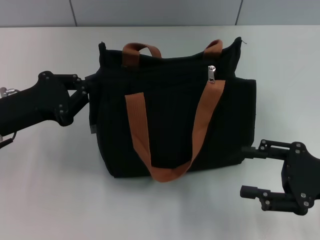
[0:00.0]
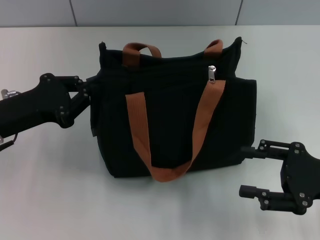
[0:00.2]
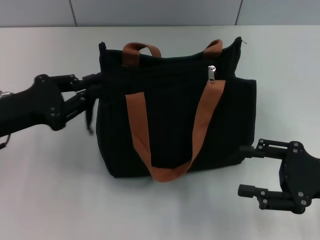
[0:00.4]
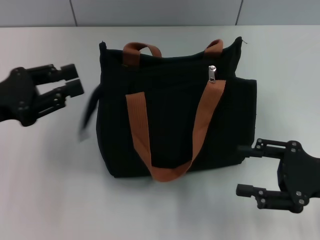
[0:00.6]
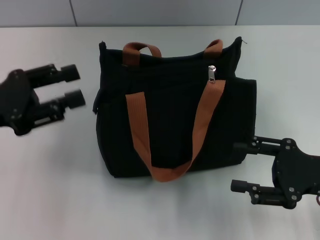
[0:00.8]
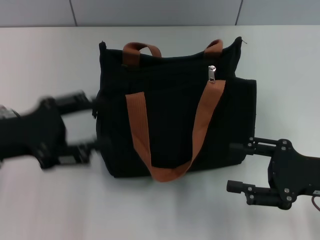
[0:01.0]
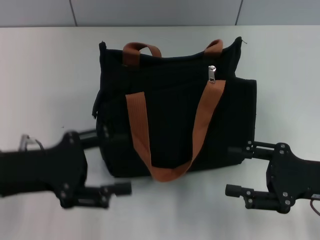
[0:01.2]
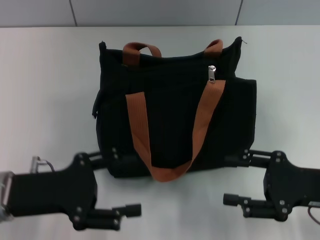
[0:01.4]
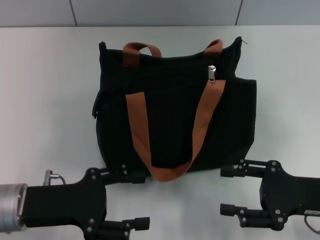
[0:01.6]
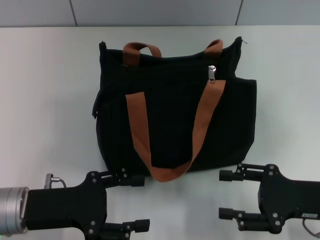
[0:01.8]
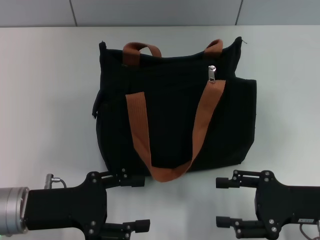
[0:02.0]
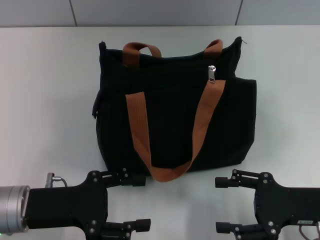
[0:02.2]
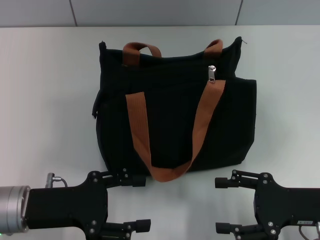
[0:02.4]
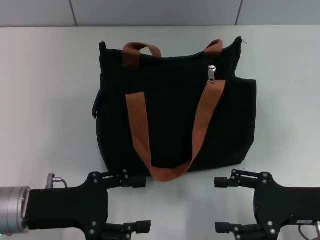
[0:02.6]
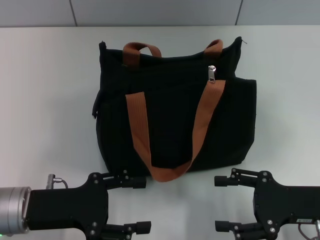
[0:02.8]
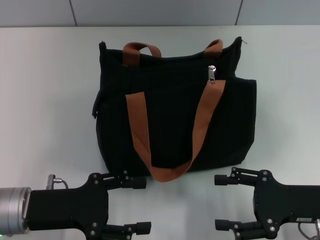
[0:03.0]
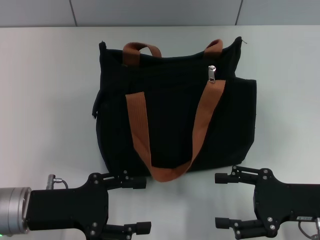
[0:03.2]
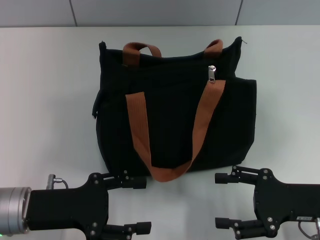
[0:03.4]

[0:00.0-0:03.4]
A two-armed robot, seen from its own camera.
0.0 to 1.6 s: The left gripper heads backward, covering approximately 5 cm, and opens its fingers.
1.6 to 3.4 s: Both grippers stay put.

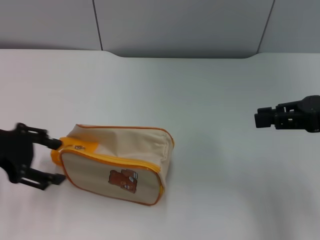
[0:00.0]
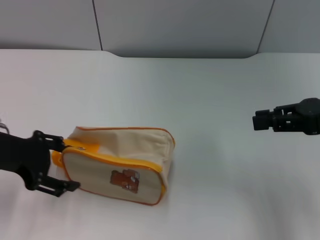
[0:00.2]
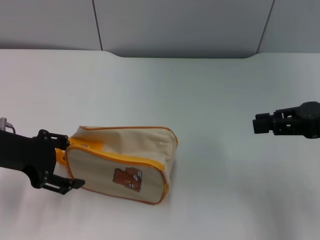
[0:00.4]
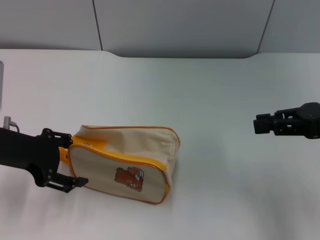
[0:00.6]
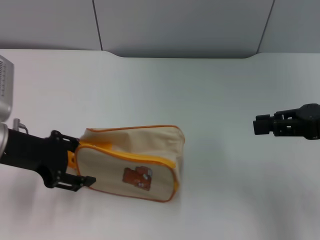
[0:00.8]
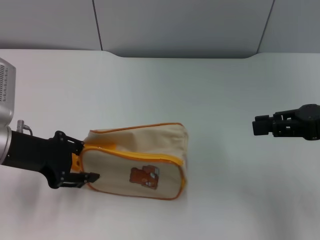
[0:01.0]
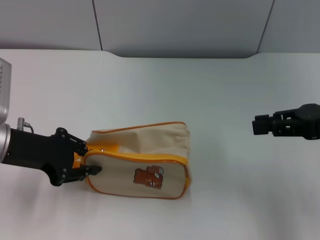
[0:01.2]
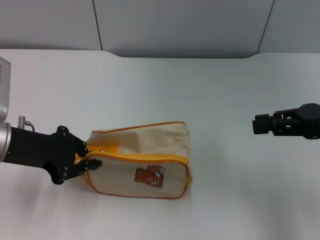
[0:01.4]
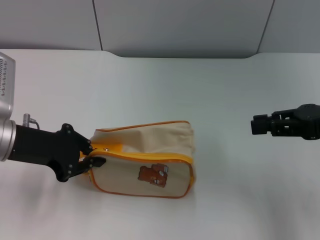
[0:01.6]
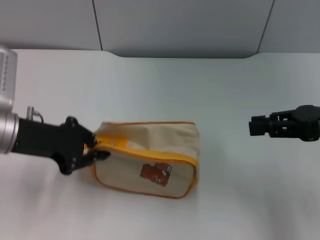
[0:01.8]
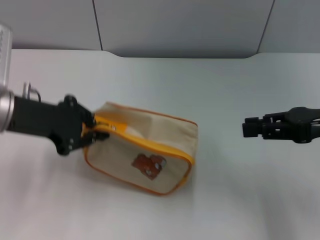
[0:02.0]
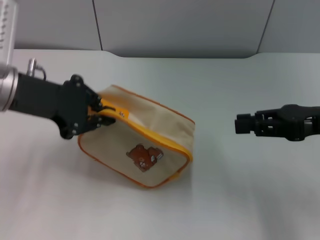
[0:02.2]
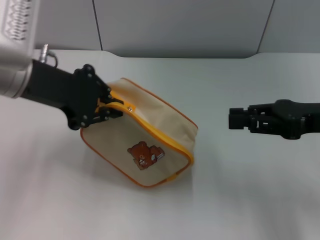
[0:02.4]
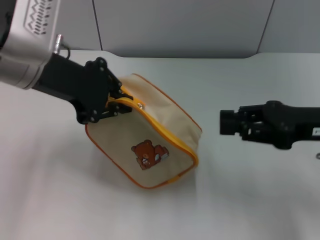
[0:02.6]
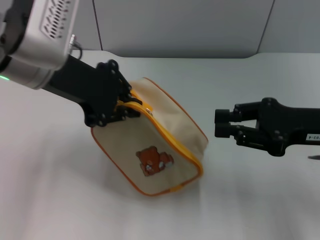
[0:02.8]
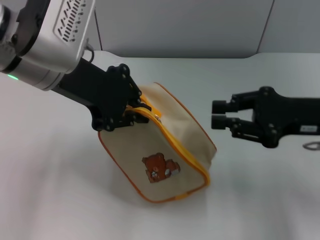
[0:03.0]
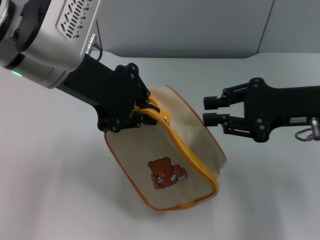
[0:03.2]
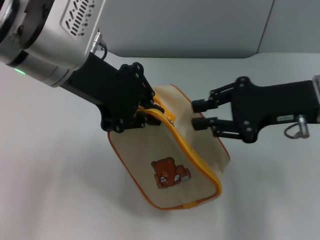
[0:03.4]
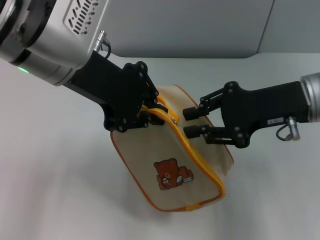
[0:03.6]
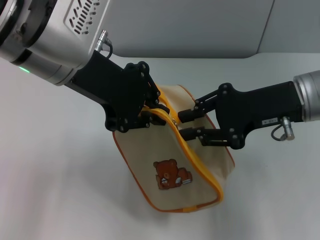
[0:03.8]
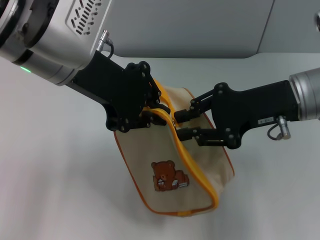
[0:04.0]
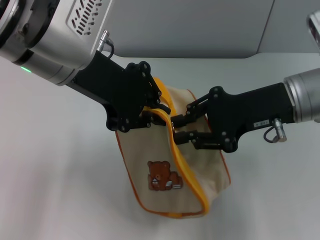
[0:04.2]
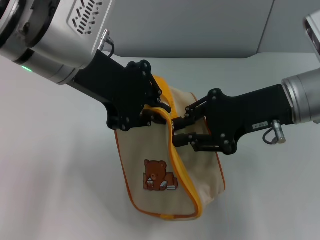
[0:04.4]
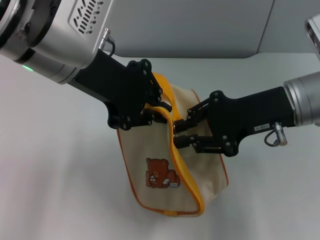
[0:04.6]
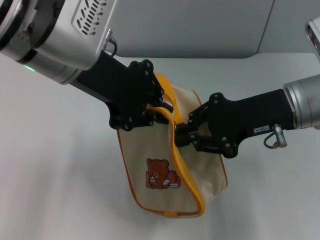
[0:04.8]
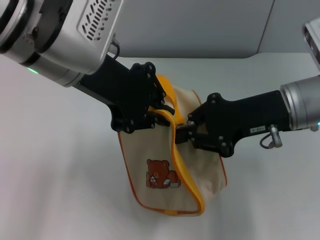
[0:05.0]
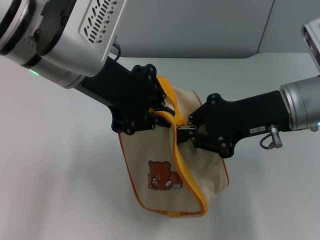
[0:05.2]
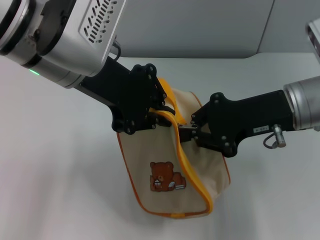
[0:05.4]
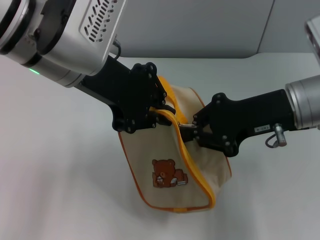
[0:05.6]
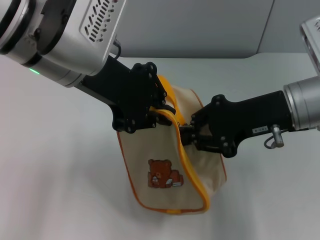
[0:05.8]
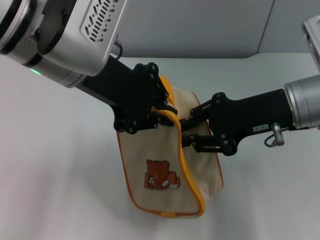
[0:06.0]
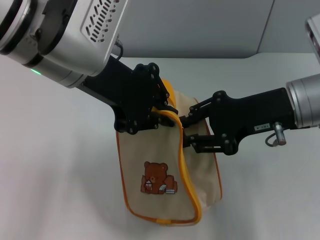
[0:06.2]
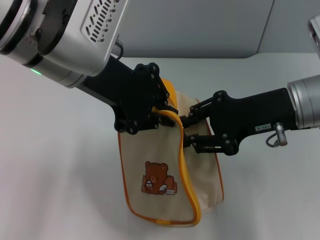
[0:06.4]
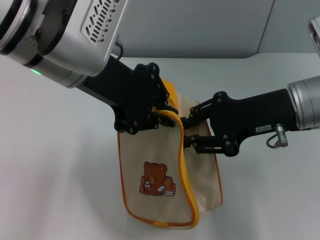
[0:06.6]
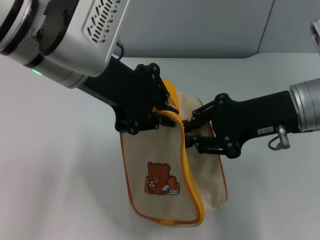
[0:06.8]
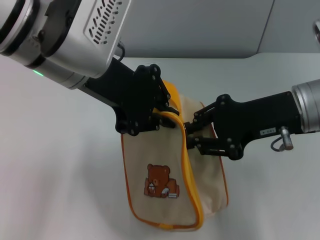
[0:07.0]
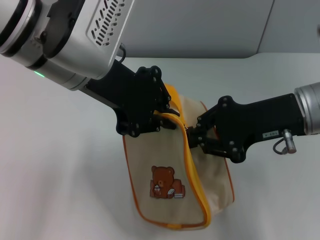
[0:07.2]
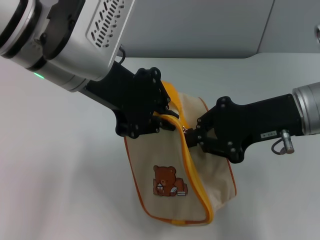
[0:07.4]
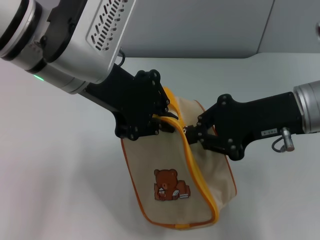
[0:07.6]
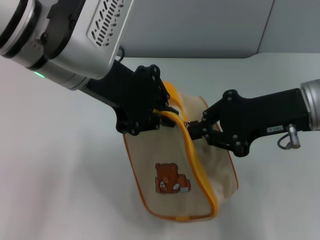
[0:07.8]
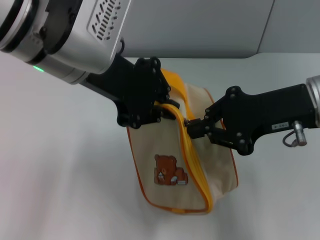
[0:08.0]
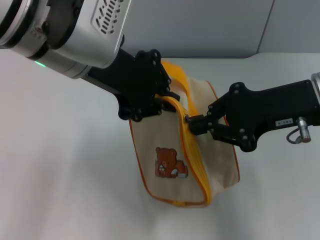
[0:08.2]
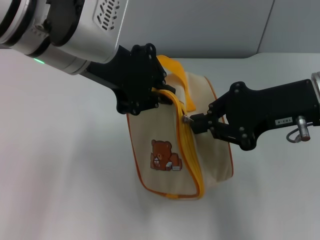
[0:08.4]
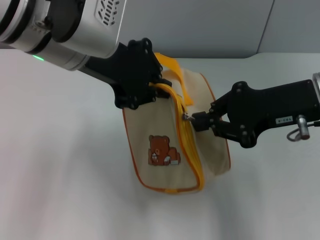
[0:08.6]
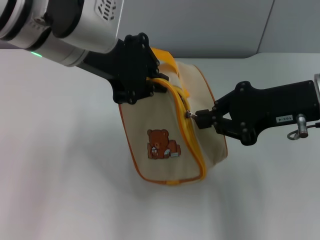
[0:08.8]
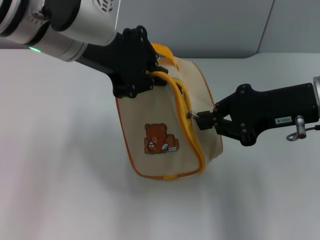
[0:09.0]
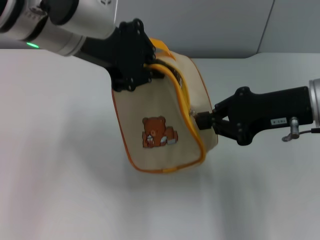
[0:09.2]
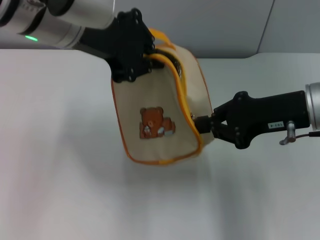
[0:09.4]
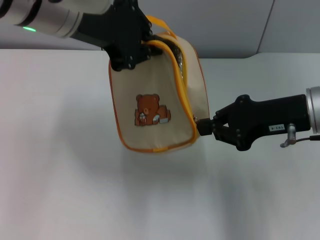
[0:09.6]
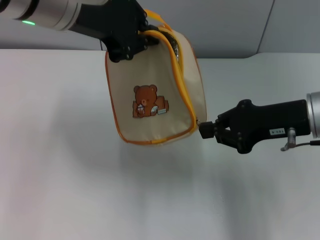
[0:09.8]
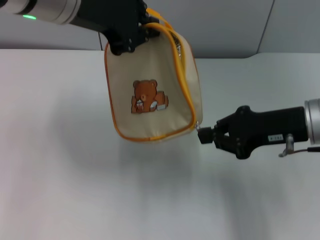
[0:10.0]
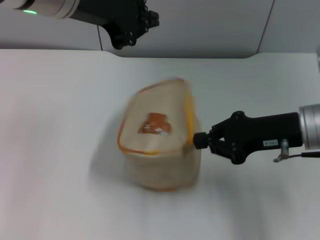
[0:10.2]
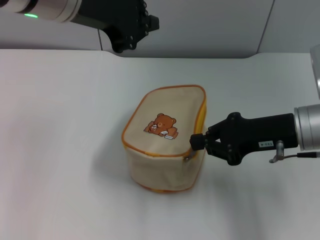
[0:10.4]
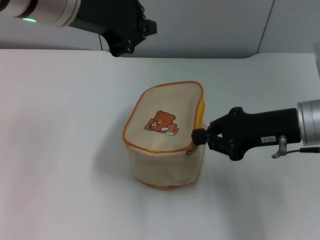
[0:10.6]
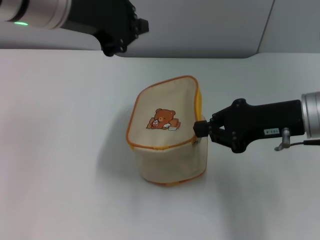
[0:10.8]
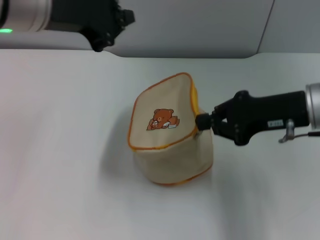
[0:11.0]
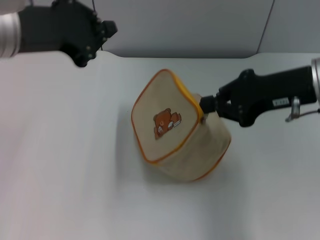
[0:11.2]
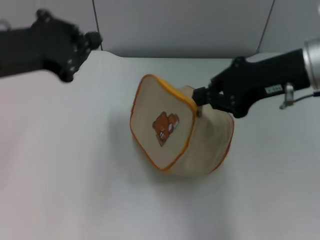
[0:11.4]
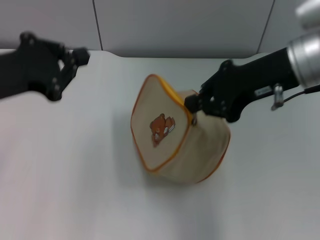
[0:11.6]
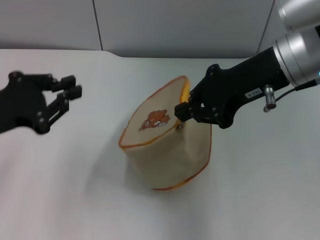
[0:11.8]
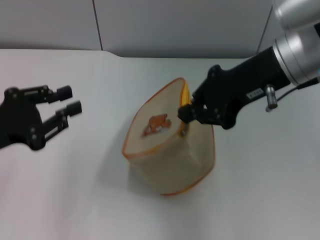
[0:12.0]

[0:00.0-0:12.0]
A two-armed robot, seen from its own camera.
Step, 0.0 to 2.2 s: Pick up the bag with left gripper.
0.0 to 1.6 s: The left gripper shifts by approximately 5 cm, and closes its fingers.
1.6 to 3.0 s: The left gripper shifts roughly 15 cm upward and to the right. The right gripper moves about 5 cm.
3.0 to 4.4 s: The right gripper is displaced to the left by roughly 5 cm.
4.4 to 7.6 s: There are only small adjustments of the grippers.
9.0 to 10.4 s: The right gripper travels downward by approximately 5 cm.
10.4 to 12.0 s: The left gripper is displaced downward, to the left and backward by about 25 cm. Meanwhile the right gripper shifts some 10 cm upward and to the left.

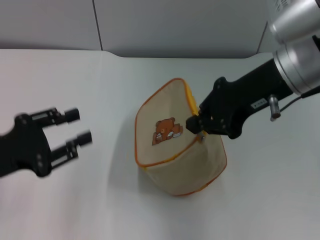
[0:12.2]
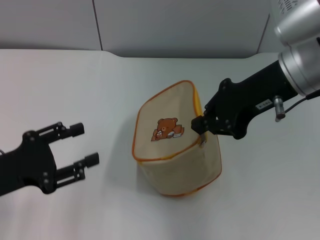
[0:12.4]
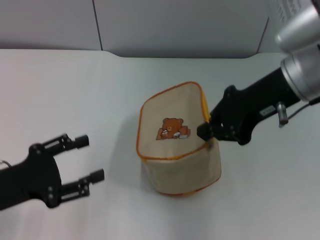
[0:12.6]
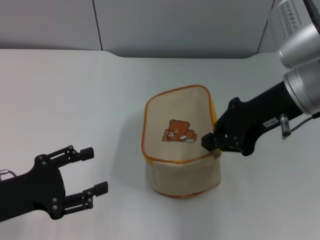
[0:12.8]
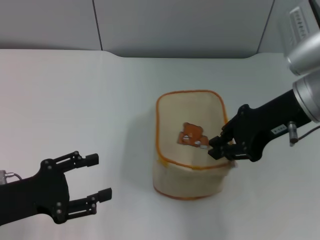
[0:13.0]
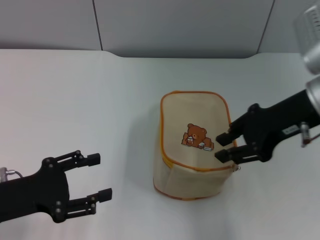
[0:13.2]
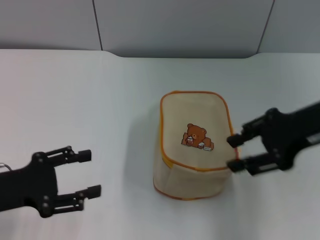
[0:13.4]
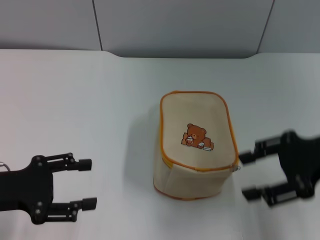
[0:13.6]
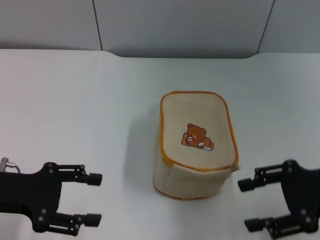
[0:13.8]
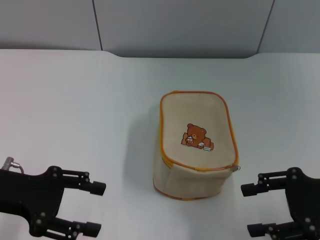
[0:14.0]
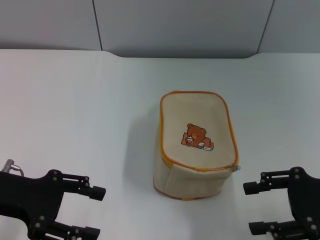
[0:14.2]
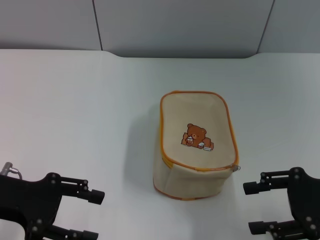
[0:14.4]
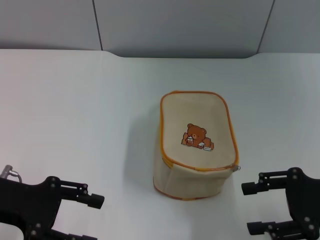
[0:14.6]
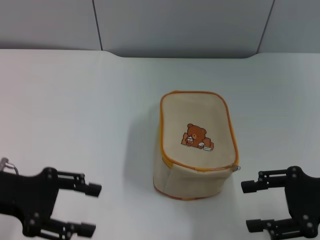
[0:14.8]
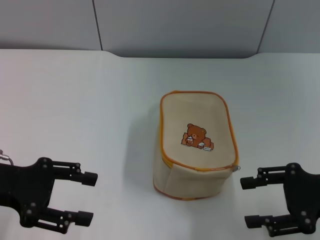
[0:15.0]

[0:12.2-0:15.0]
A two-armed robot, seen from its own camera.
12.2 to 13.6 s: The left gripper opens. Meanwhile the right gripper shifts approximately 15 cm to the right, backward and downward, and opens up.
13.6 to 15.0 s: The right gripper is displaced downward by approximately 5 cm.

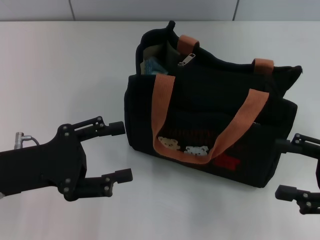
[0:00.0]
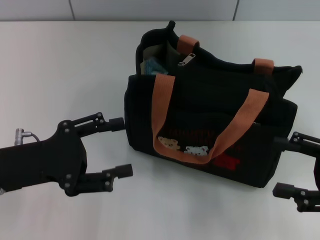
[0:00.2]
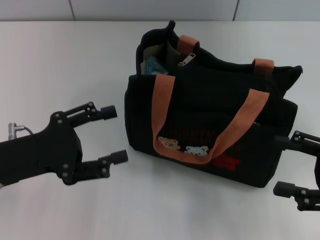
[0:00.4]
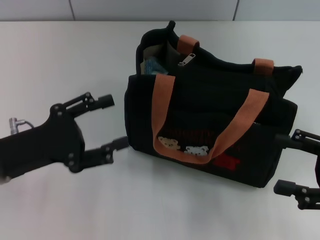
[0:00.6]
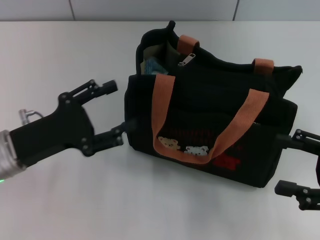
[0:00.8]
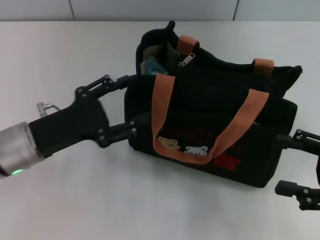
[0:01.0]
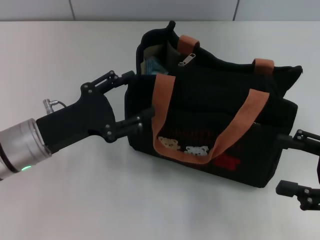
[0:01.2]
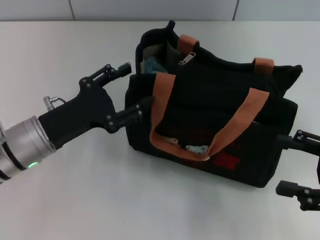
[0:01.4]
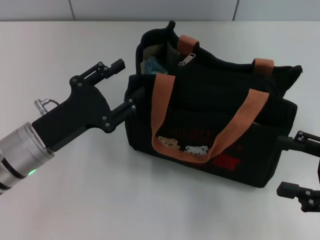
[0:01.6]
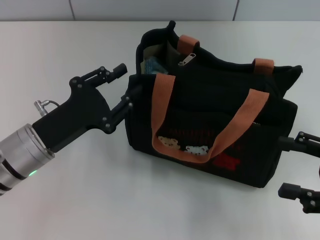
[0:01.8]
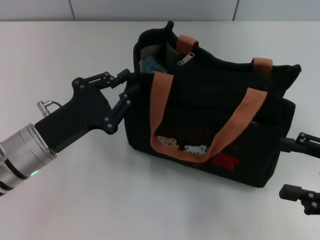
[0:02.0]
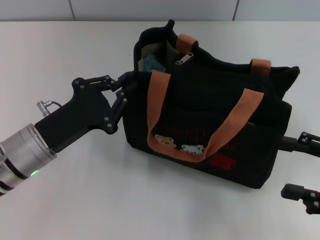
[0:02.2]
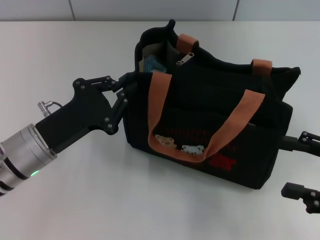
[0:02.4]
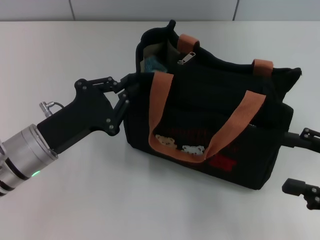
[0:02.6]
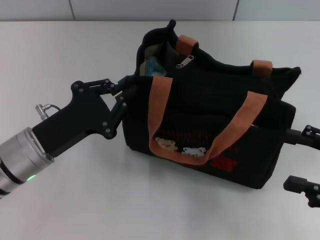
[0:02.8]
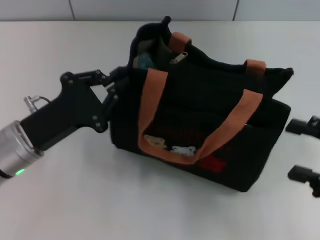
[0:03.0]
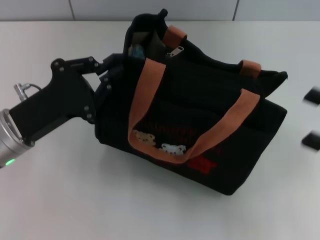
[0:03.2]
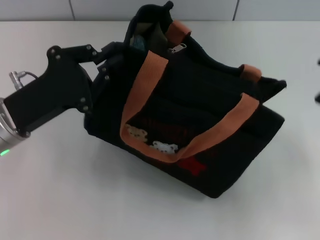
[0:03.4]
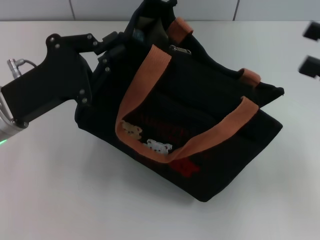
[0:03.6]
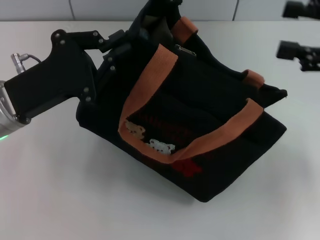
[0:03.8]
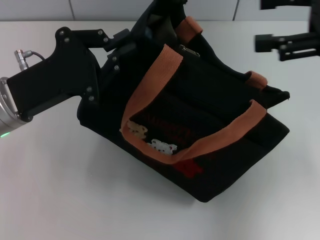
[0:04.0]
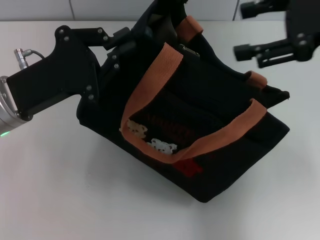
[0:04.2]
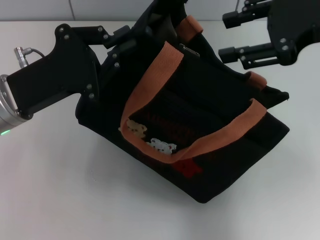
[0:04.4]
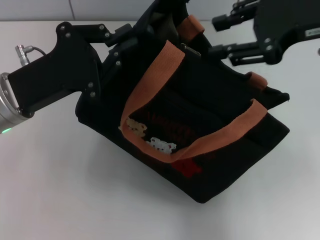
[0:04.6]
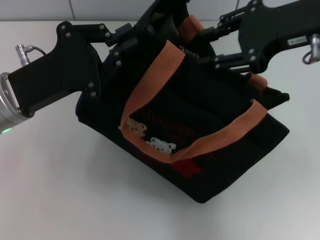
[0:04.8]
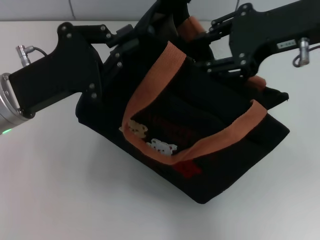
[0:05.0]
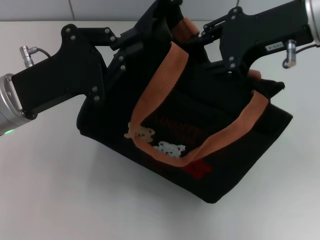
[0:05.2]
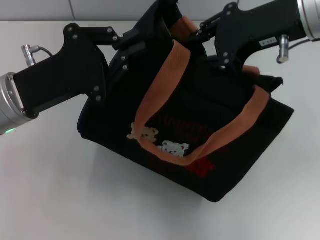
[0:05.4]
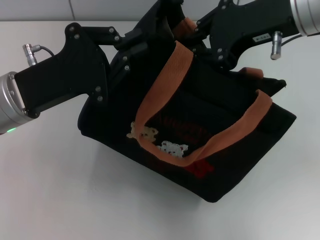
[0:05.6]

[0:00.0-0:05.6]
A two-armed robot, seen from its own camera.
0.0 to 1.4 s: The left gripper shifts by about 5 cm.
1.4 to 2.8 s: The left gripper closes its fingers.
2.8 to 4.2 s: The right gripper is displaced upward, forward and to the left by some 25 cm, while the left gripper travels upward by some 5 cm.
4.2 to 5.6 s: The right gripper shifts about 10 cm to the left, and closes up.
